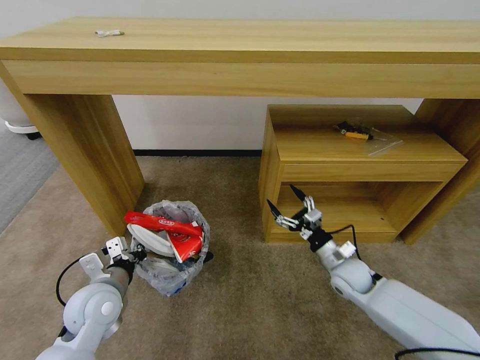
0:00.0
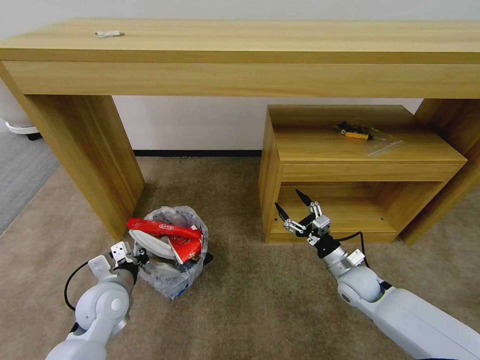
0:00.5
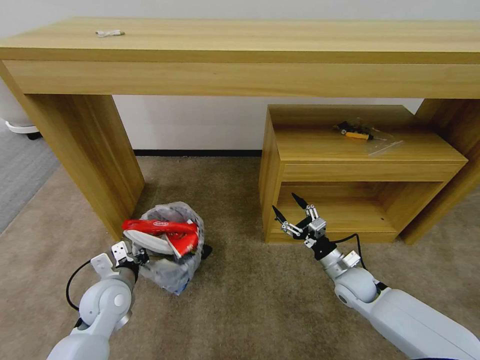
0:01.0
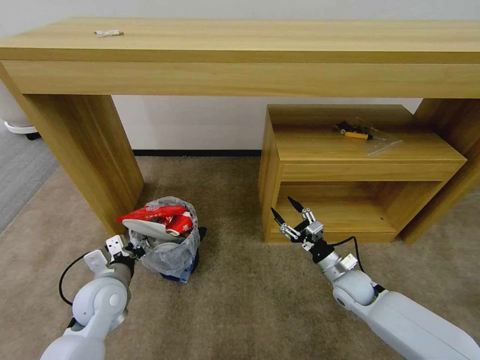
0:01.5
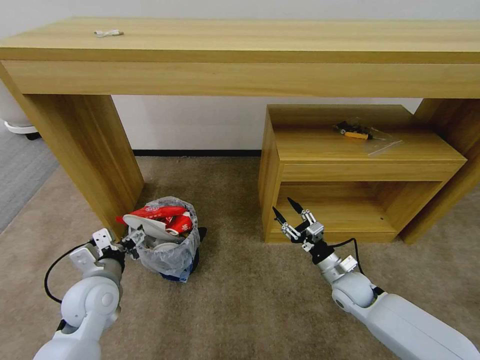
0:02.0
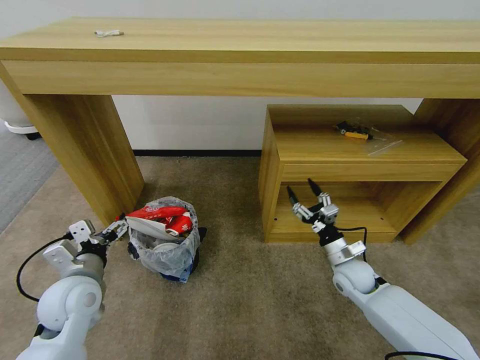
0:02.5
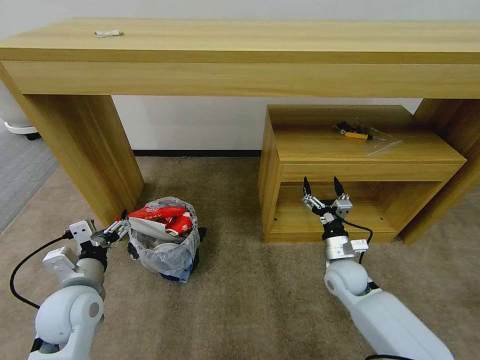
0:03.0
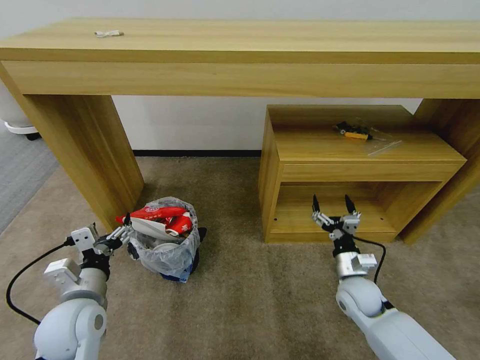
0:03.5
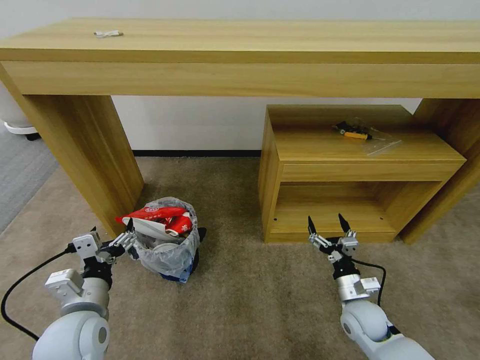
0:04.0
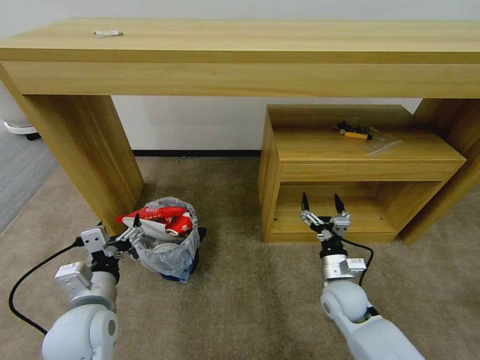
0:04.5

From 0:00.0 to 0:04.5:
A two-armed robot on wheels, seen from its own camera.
Task of the whole recording: Pick up the trash bin and place the garbage on the floor into it.
From 0:00.0 to 0:02.0: The left gripper opens its fingers.
From 0:02.0 to 0:04.5: The left gripper shifts some 5 cm backward, while the right gripper opens.

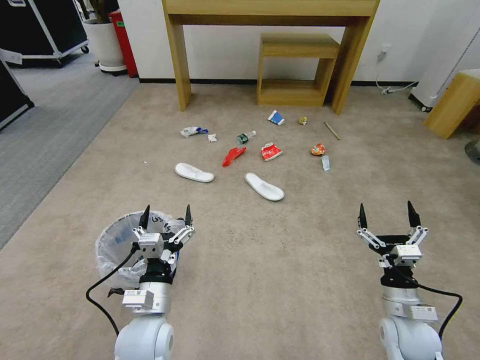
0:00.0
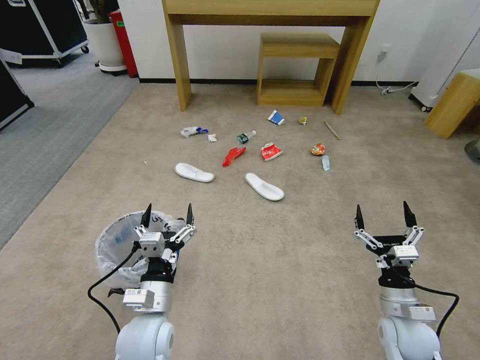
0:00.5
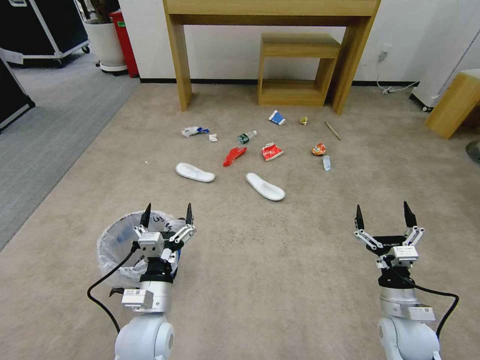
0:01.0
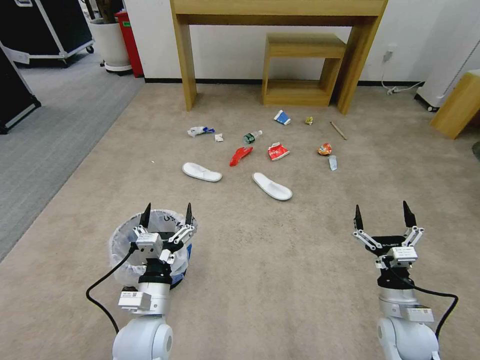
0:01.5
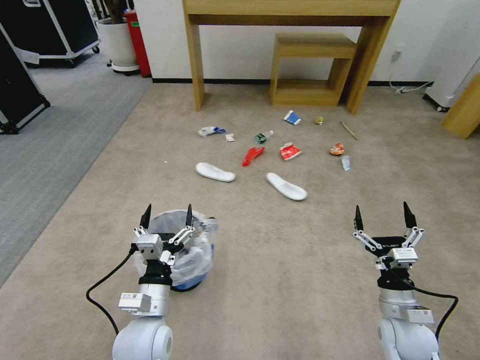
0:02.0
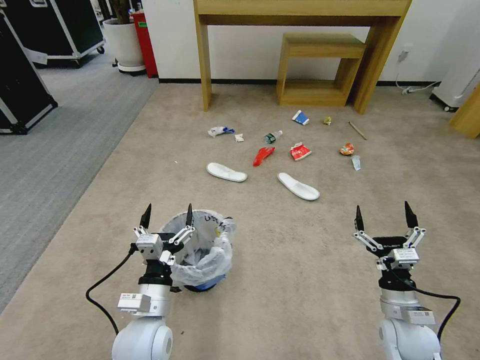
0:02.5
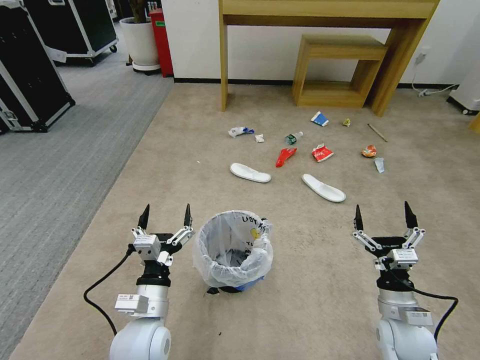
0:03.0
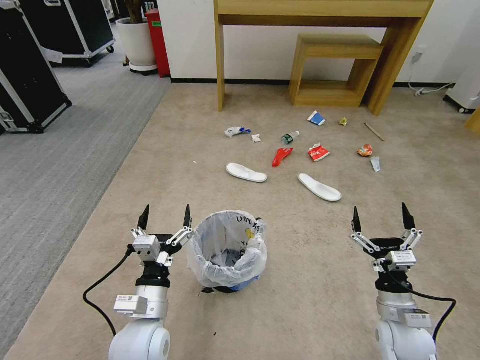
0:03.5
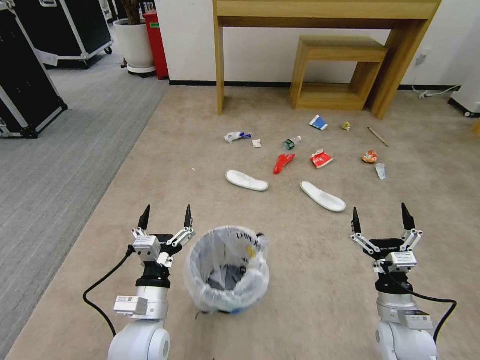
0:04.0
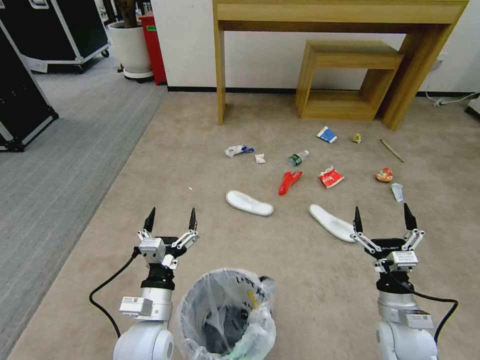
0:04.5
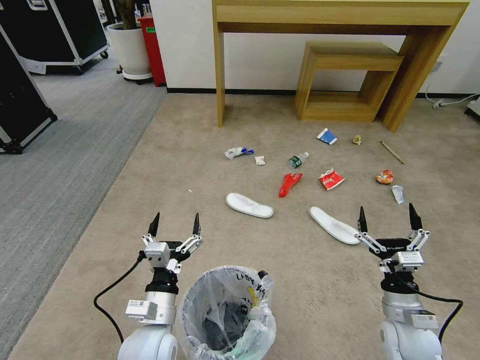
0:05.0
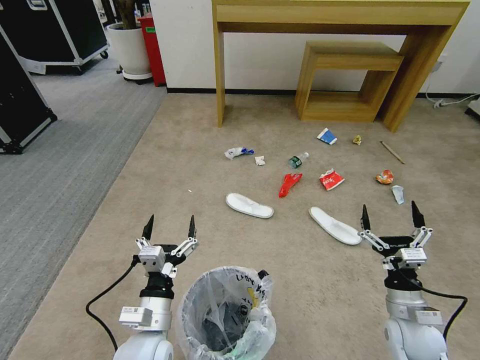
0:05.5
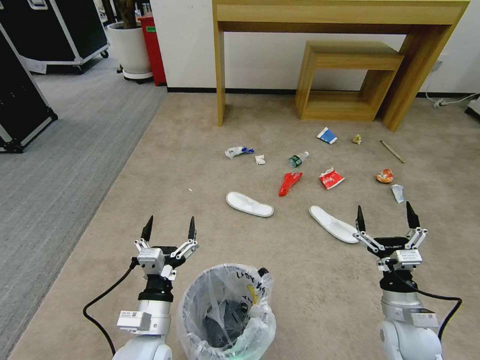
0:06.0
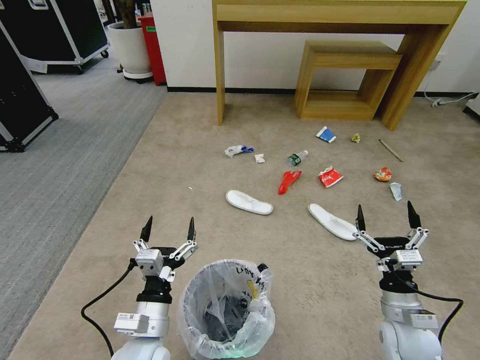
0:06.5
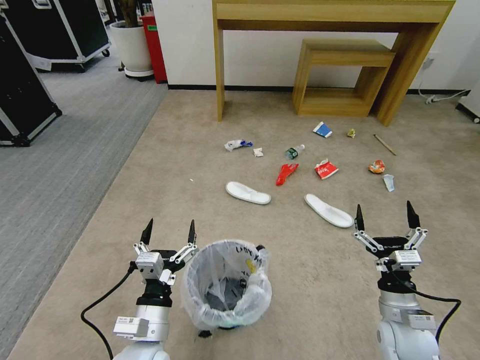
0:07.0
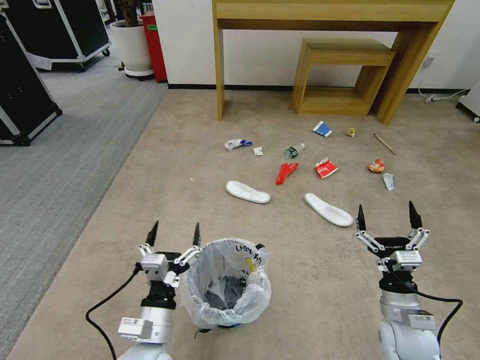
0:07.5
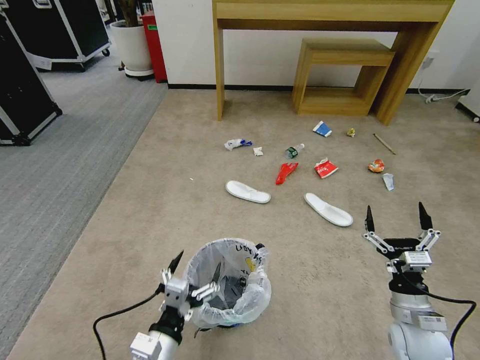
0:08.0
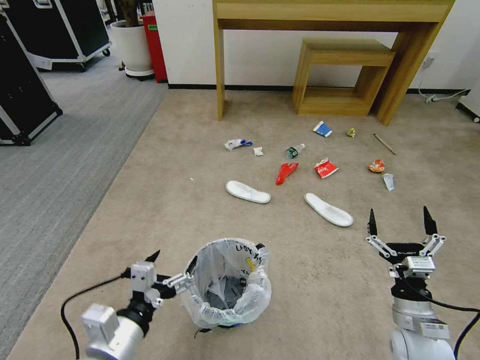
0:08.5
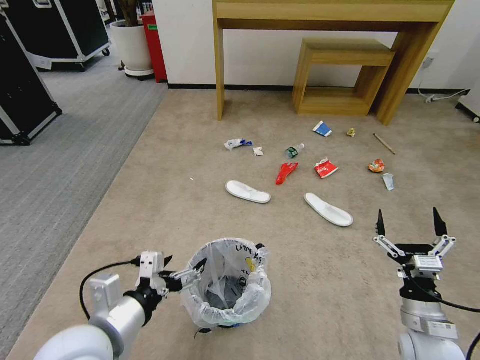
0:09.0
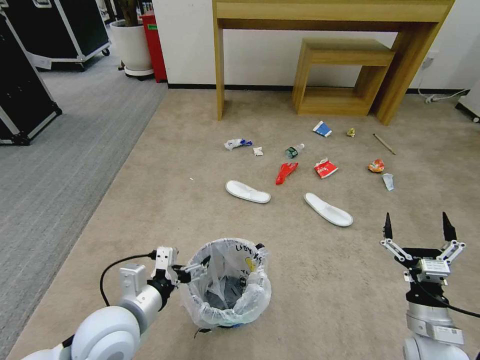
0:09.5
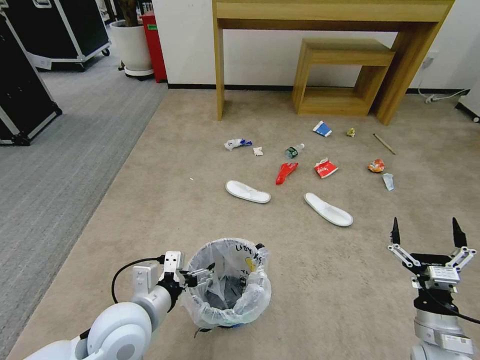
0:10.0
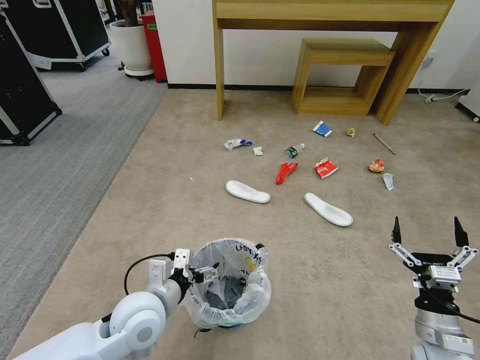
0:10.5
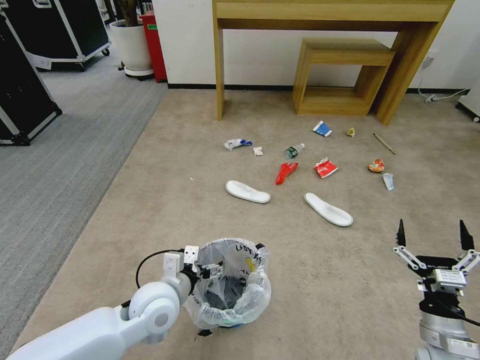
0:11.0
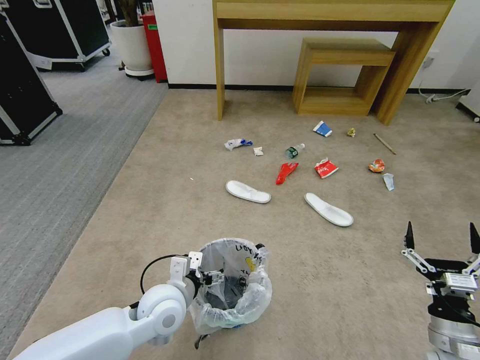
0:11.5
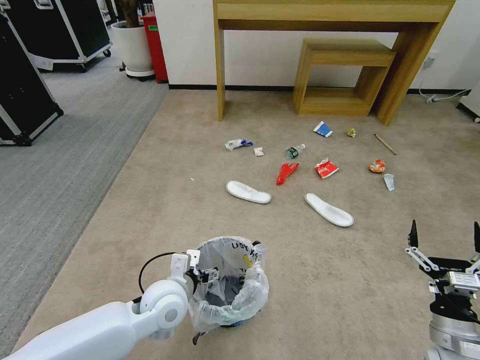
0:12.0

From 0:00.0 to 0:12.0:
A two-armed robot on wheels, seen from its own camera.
Task of the whole recording: Pick up the trash bin and place the garbage on the floor into it.
From 0:06.0 to 0:08.0: The left gripper moves backward, some 5 cm.
From 0:08.0 to 0:10.0: The left gripper is displaced forward and upward by roughly 10 cm.
From 0:10.0 to 0:12.0: The left gripper shifts about 10 cm forward and downward.

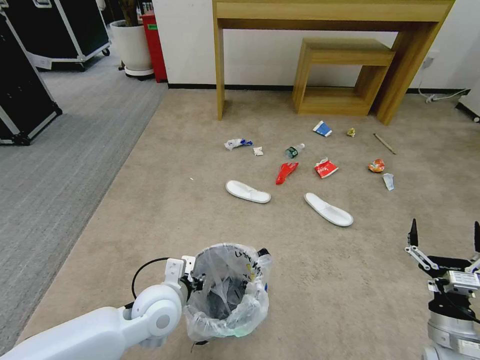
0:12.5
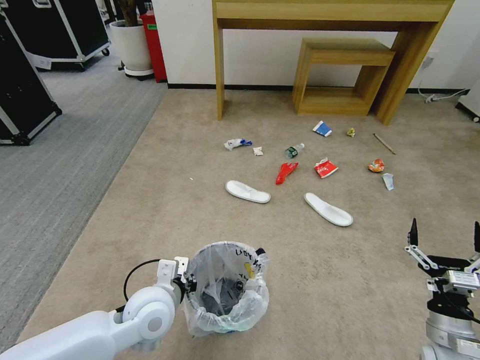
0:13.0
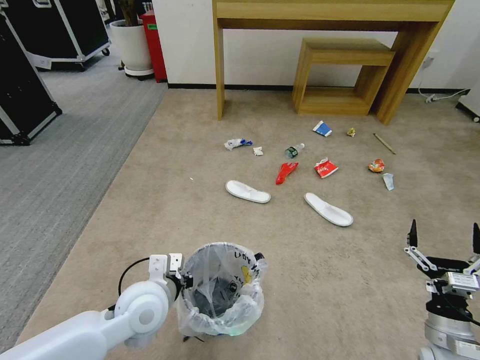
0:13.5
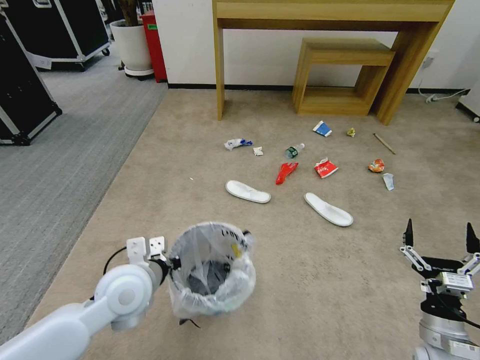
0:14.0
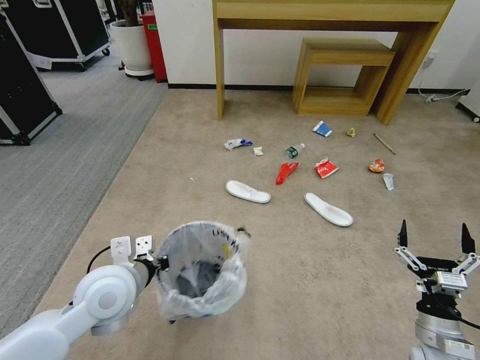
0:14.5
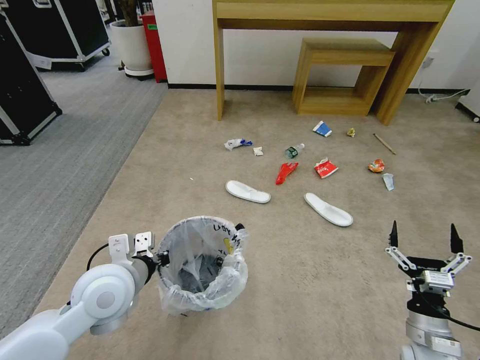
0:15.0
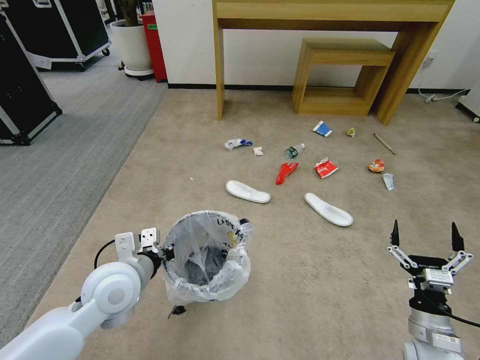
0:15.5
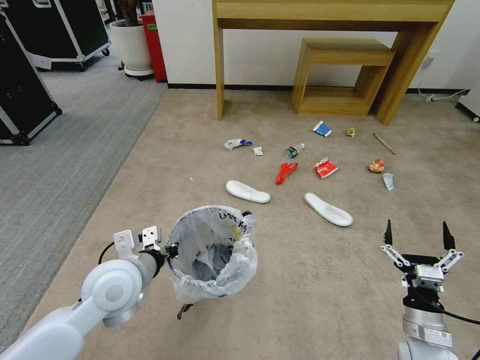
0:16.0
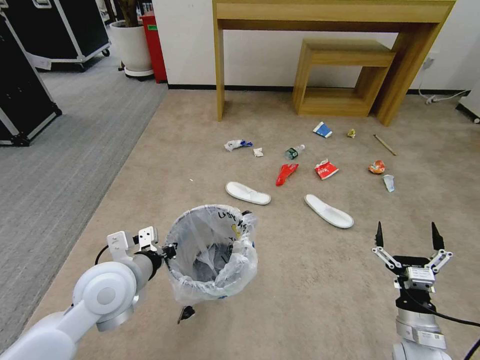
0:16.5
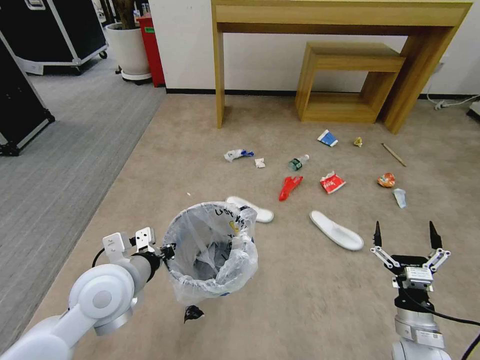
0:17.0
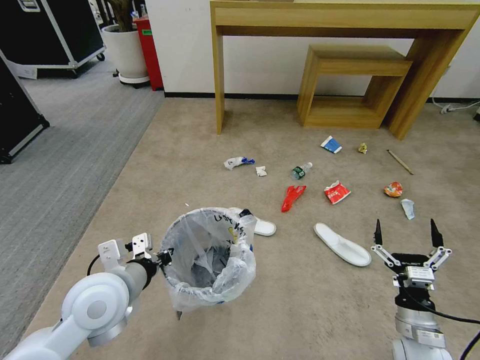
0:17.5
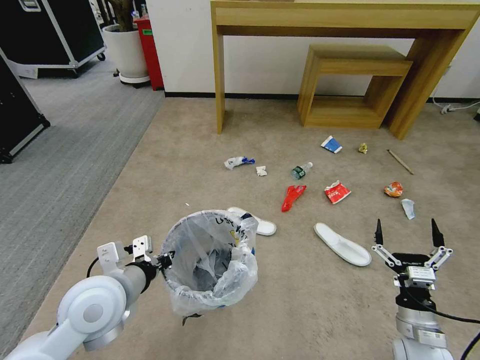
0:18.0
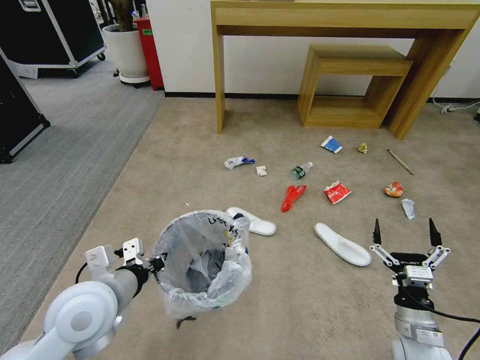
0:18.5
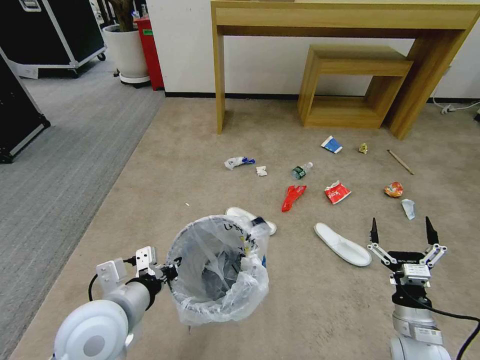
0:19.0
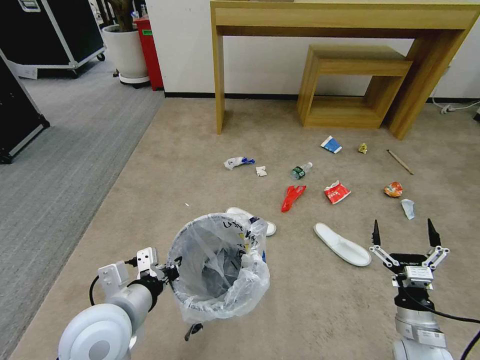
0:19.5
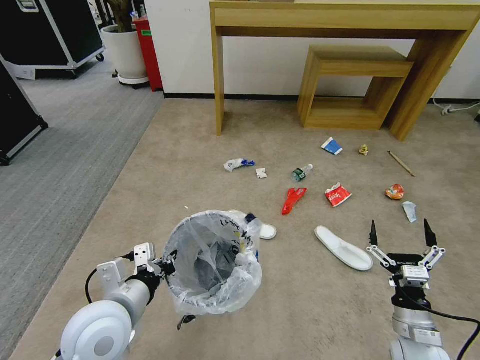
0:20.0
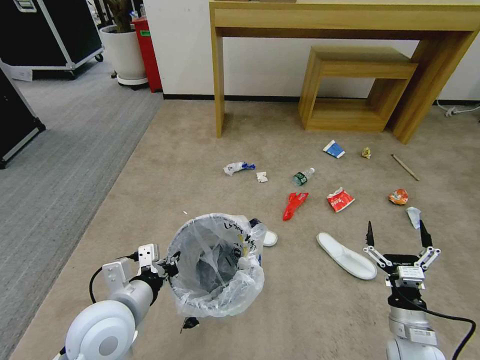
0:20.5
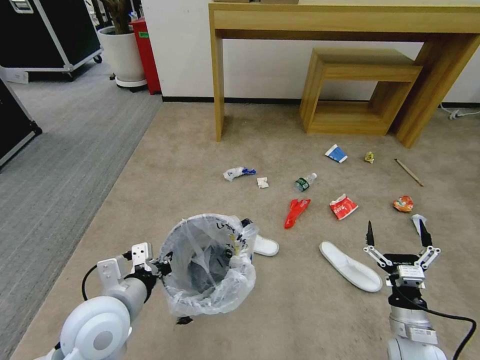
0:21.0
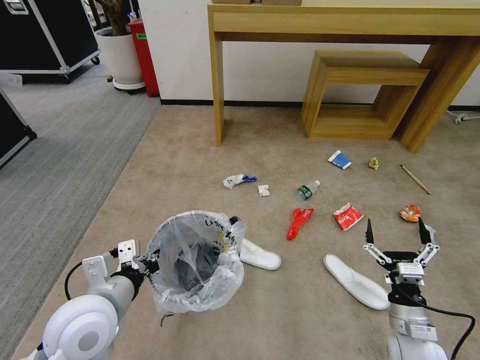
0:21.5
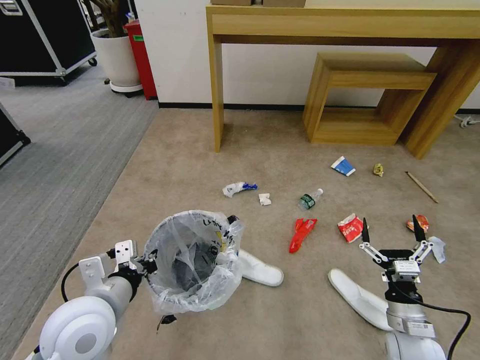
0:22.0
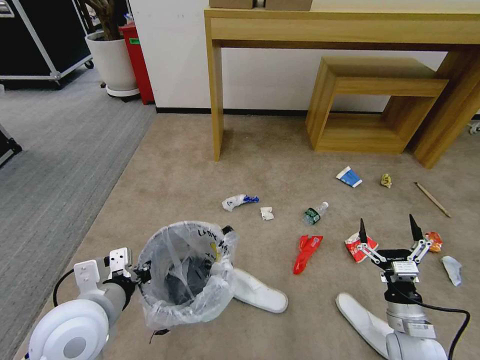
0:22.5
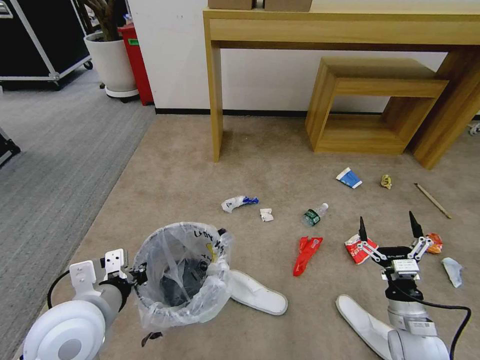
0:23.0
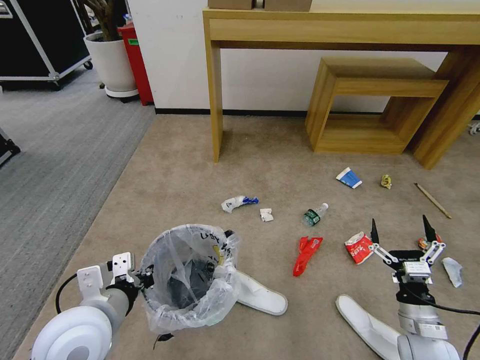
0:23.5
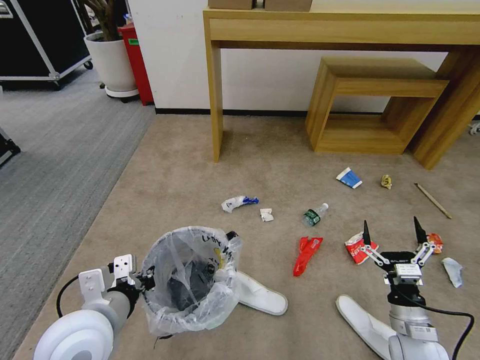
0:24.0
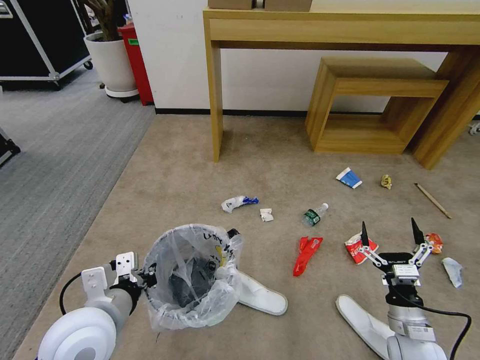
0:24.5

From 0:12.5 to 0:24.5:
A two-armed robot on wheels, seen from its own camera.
Task of the whole recording: Pick up the trash bin and place the garbage on the floor into it.
From 0:12.5 to 0:14.5: The left gripper moves upward and to the left, approximately 10 cm, and closes.
From 0:14.5 to 0:16.5: The grippers stay close to where they were, moving slightly.
From 0:22.5 to 0:24.5: The grippers stay close to where they were, moving slightly.
